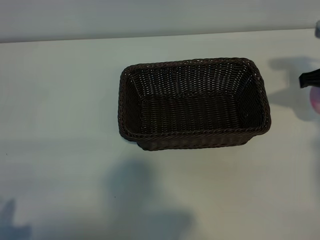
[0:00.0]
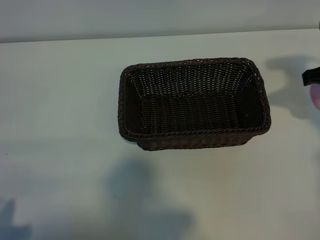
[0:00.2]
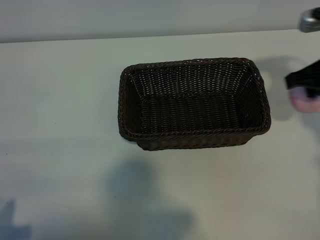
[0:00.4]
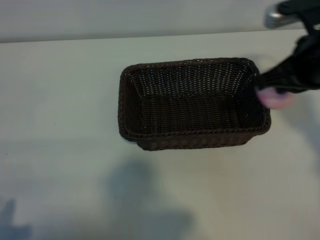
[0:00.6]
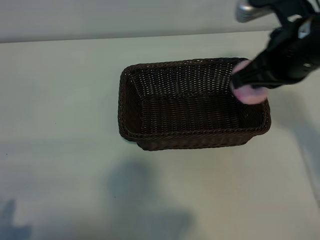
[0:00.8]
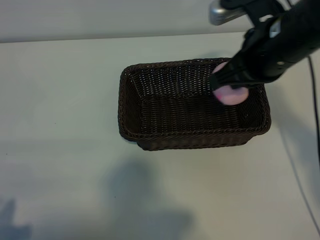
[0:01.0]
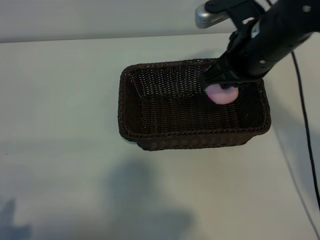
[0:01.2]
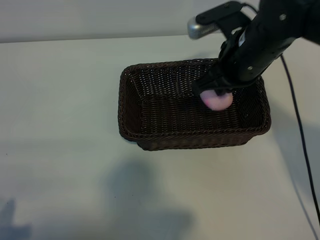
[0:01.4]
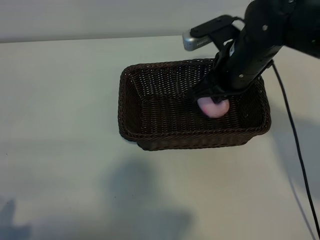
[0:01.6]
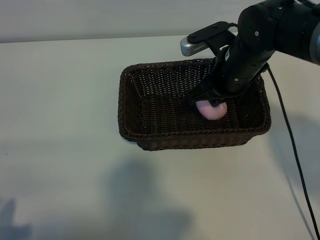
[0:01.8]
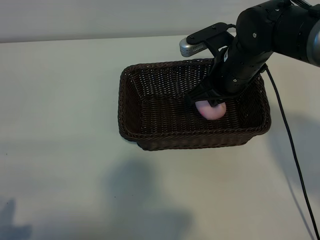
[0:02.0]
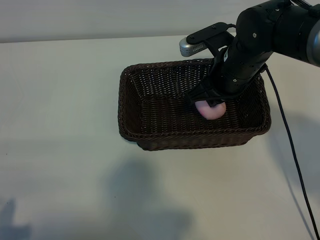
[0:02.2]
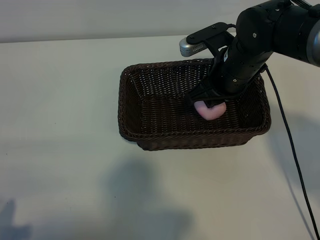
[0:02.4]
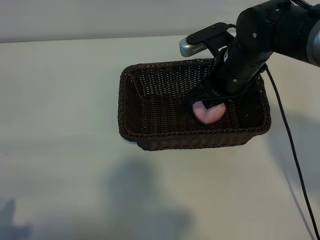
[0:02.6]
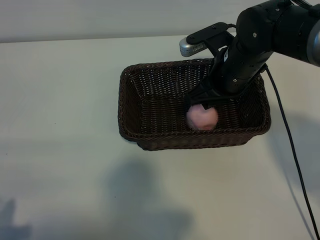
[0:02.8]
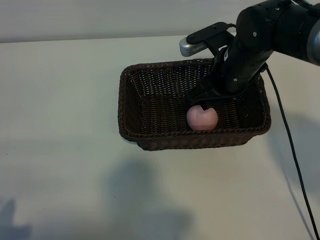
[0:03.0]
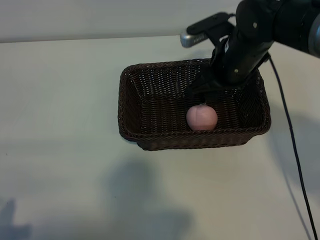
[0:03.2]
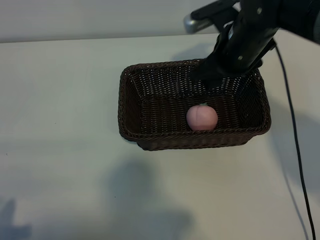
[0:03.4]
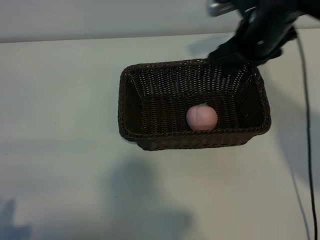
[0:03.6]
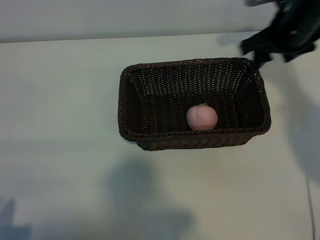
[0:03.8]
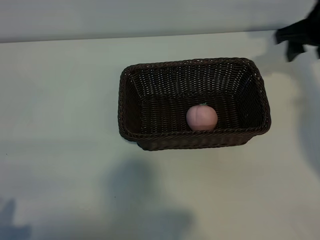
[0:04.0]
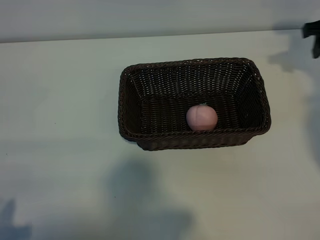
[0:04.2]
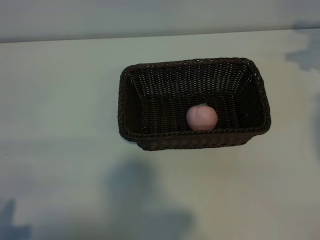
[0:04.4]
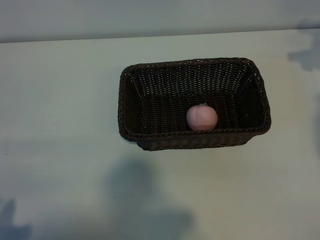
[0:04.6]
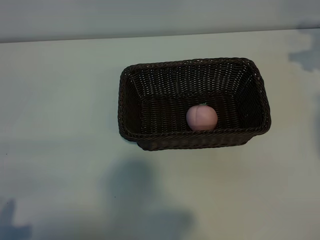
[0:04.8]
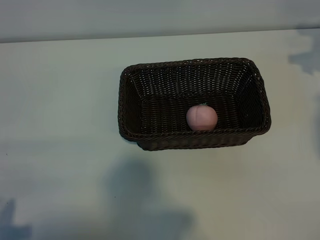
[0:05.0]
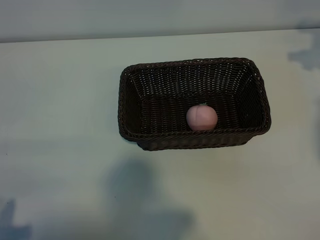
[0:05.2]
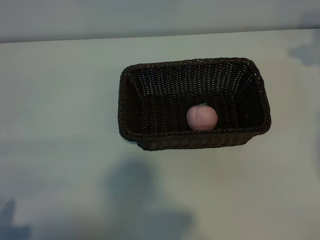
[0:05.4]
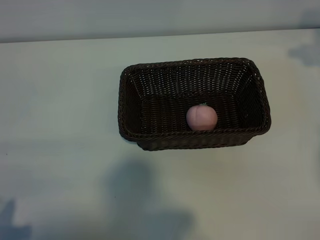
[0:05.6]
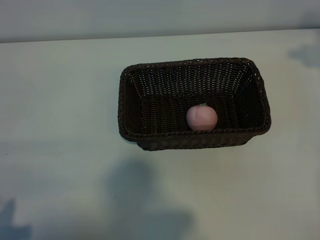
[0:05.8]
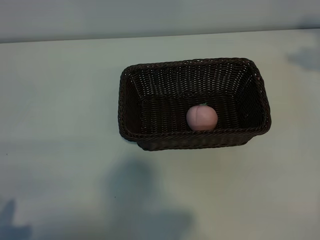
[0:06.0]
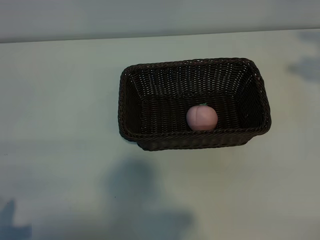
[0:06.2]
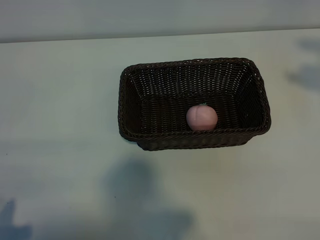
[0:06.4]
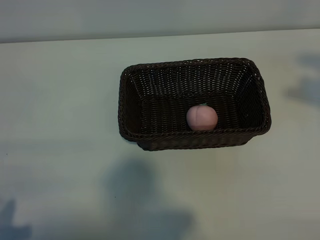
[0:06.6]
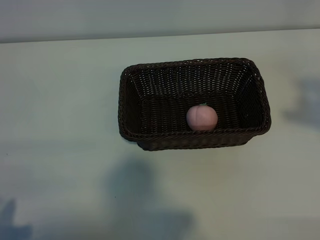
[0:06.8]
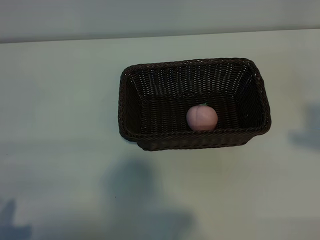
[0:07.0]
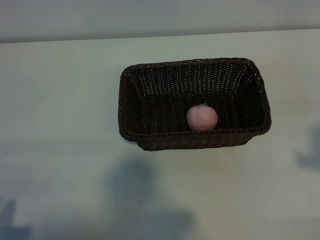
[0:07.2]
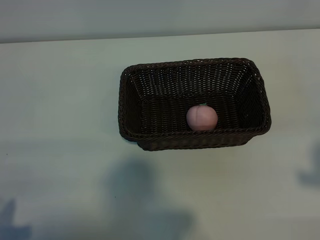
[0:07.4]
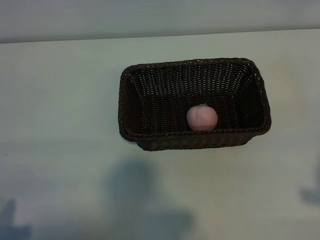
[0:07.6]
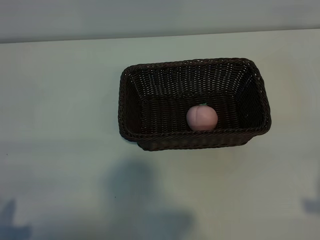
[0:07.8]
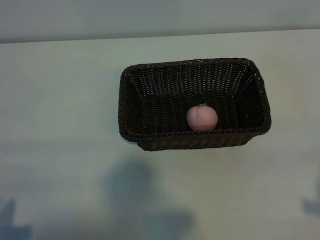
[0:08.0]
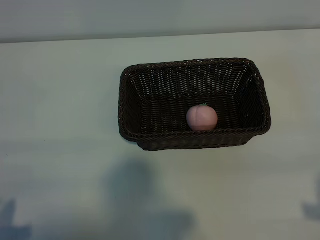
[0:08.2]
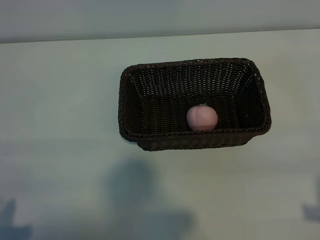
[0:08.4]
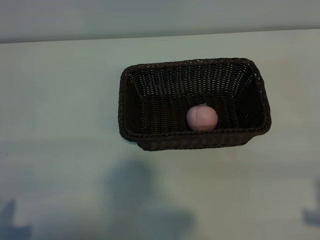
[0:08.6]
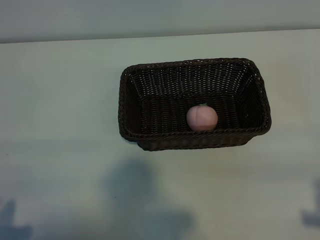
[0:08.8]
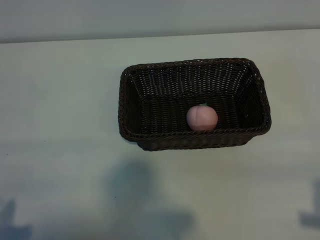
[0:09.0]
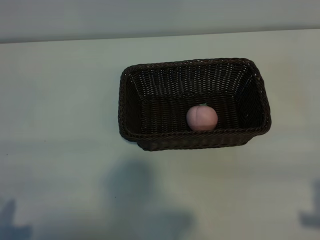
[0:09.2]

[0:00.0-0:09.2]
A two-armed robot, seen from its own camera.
Task of the whole recording: pick up the peach and put it into the basket.
Step, 0:00.0 to 0:03.0: Place the peach in the basket with right gripper.
